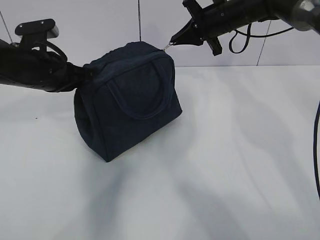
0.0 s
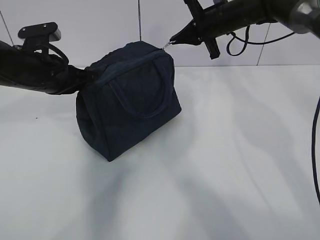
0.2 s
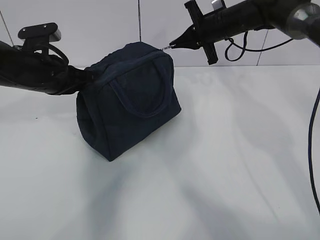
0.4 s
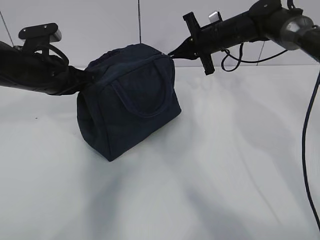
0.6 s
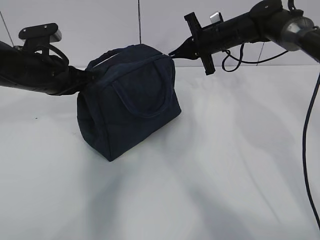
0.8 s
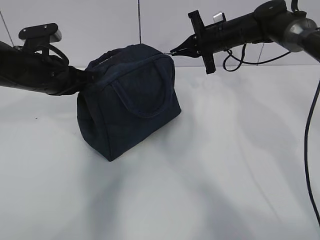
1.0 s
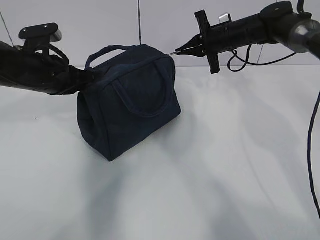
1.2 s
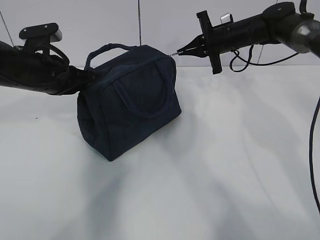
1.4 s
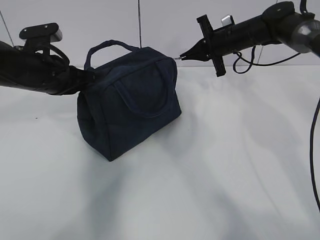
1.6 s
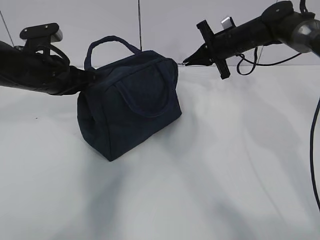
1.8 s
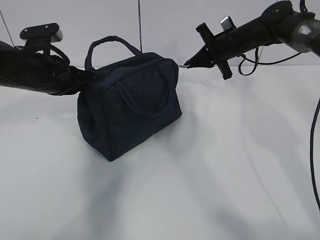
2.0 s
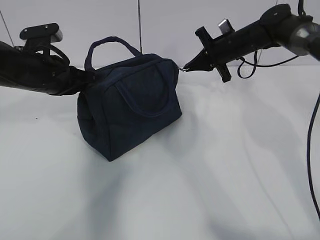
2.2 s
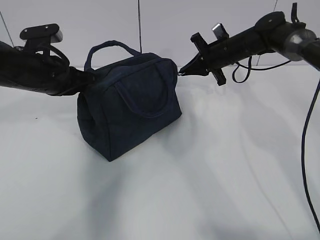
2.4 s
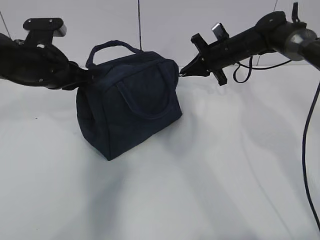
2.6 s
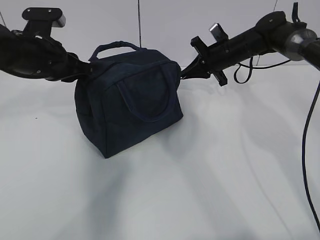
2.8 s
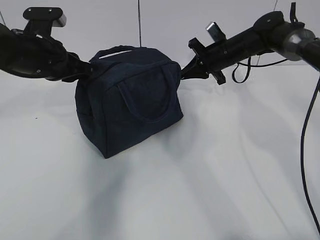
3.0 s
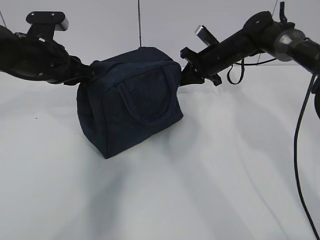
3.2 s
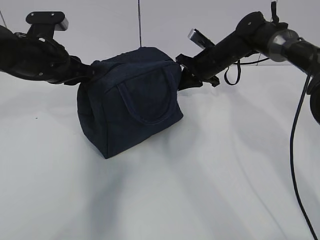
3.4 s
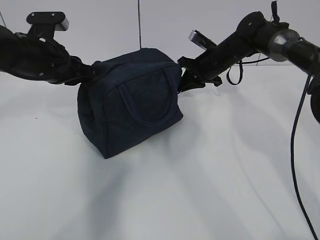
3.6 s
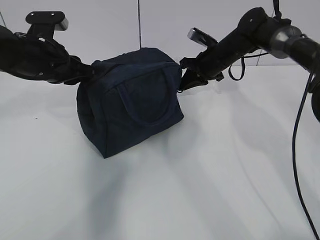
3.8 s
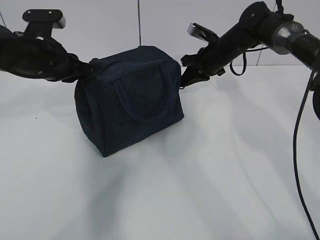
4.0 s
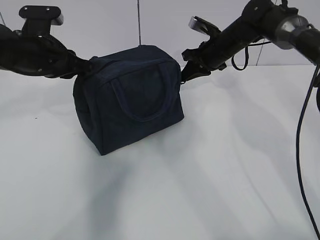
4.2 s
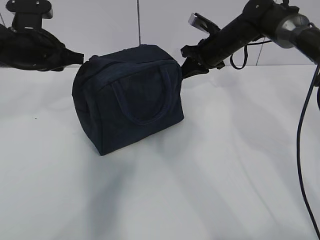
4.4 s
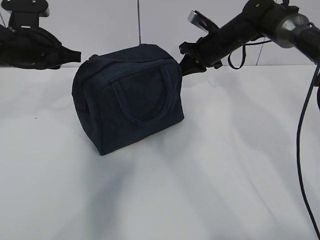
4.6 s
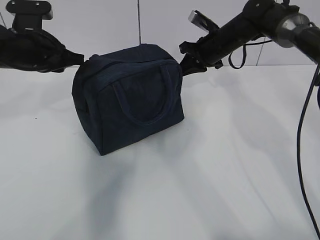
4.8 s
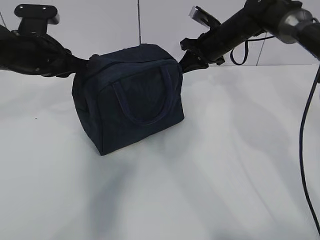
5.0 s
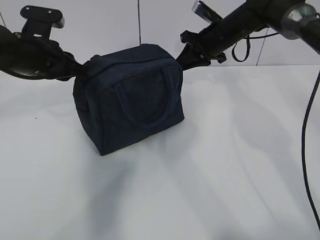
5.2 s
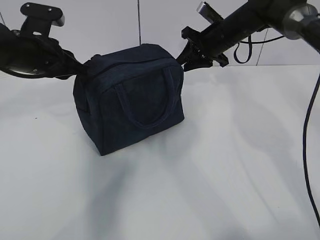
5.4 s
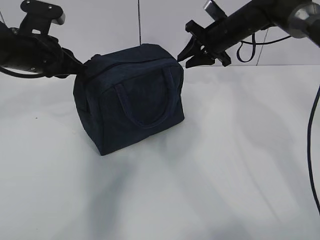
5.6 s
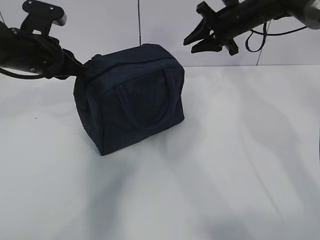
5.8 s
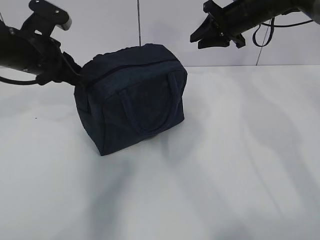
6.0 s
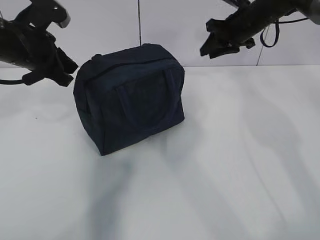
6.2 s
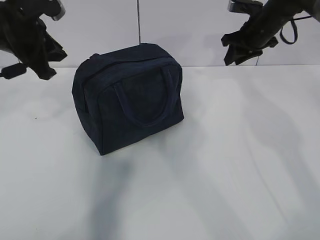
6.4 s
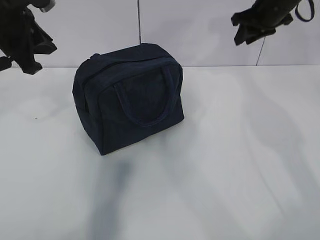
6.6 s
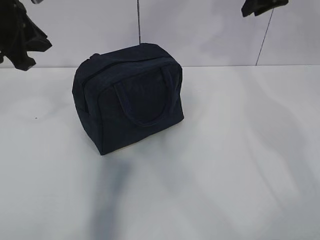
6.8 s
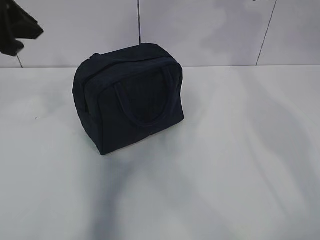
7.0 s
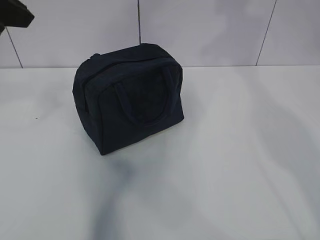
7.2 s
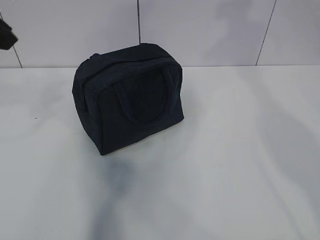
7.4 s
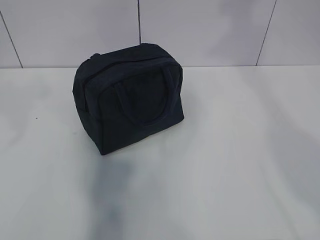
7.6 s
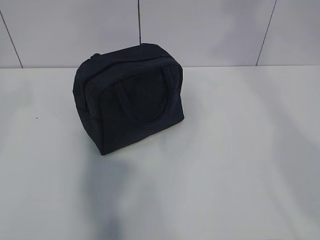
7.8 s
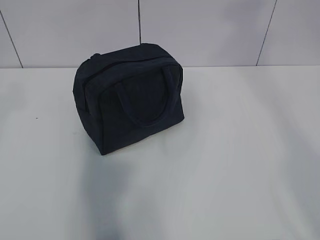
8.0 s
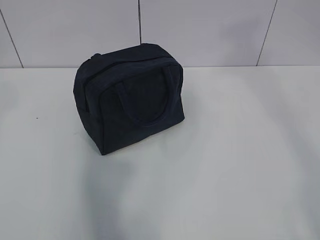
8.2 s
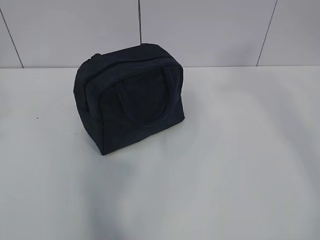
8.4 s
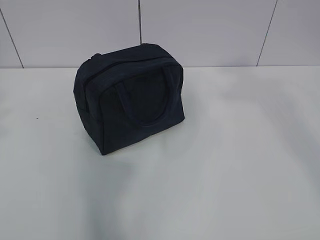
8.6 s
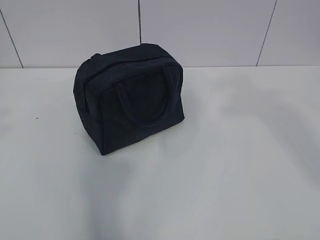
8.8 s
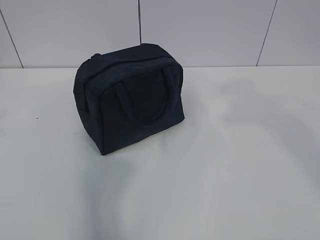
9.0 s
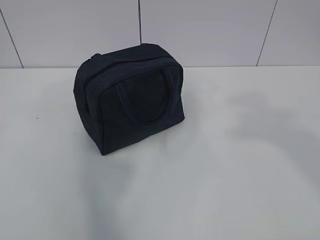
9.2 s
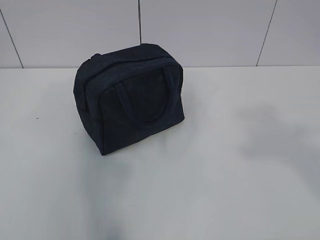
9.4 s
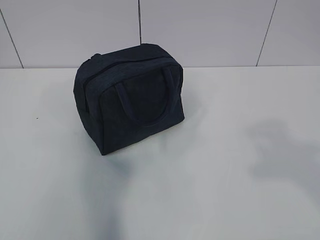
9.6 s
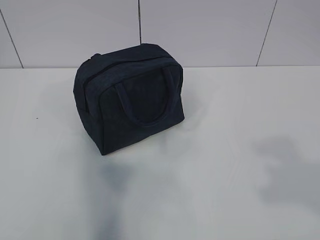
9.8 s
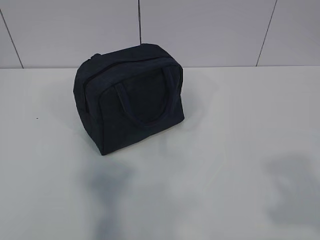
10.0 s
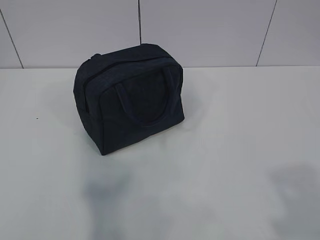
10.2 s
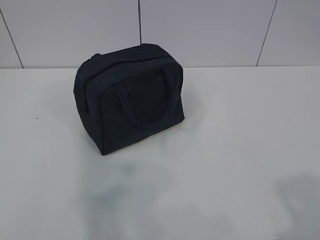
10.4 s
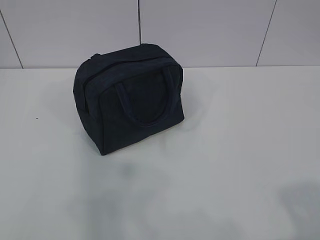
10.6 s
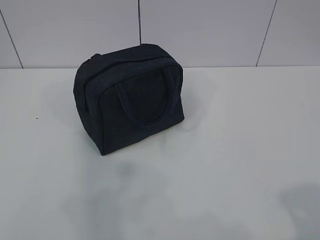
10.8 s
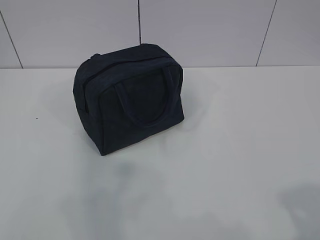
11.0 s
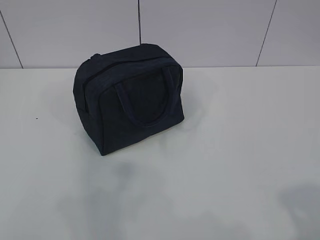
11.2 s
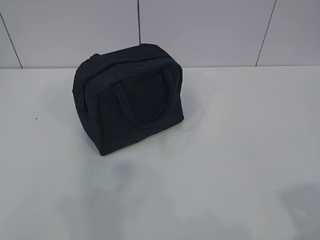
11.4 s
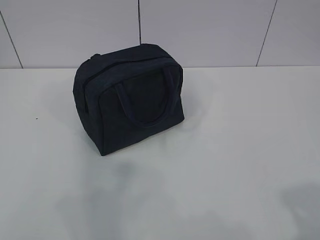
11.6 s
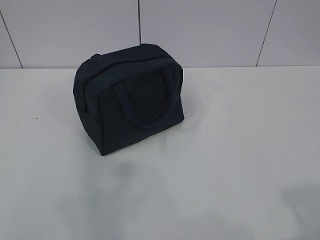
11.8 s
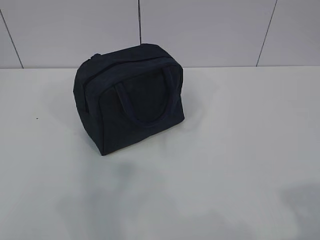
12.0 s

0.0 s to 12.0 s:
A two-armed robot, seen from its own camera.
0.0 to 1.6 s: The right gripper shifts some 5 cm downward.
4.4 to 6.0 s: The right gripper moves upward, roughly 5 cm, and opens its fingers.
6.0 to 7.6 s: The left gripper heads backward and upward, covering about 25 cm. The right gripper travels upward and backward by some 30 cm.
7.6 to 9.0 s: The right gripper moves backward, roughly 25 cm. The left gripper heads backward, covering about 10 cm.
9.0 to 10.4 s: The right gripper goes about 20 cm downward and backward.
